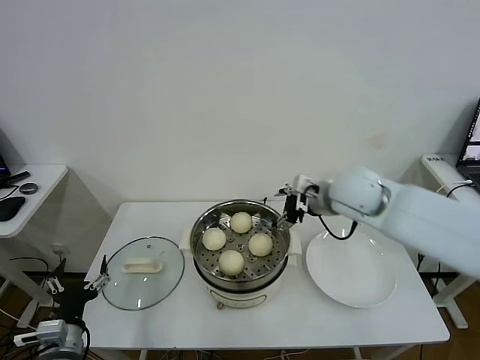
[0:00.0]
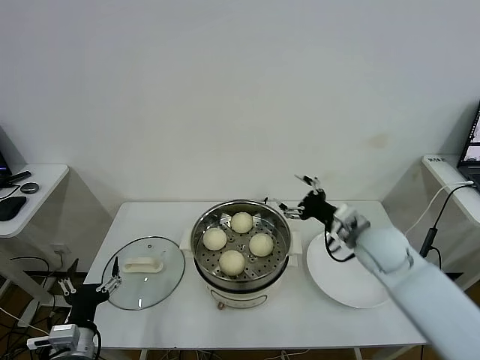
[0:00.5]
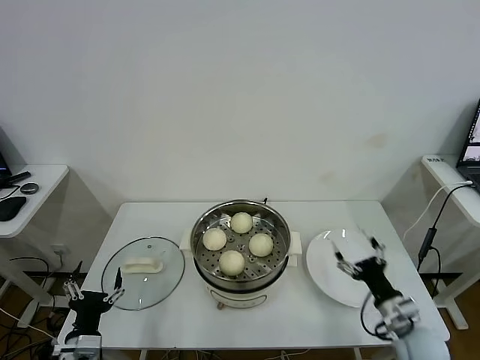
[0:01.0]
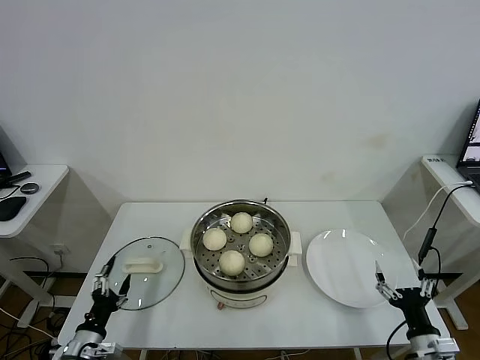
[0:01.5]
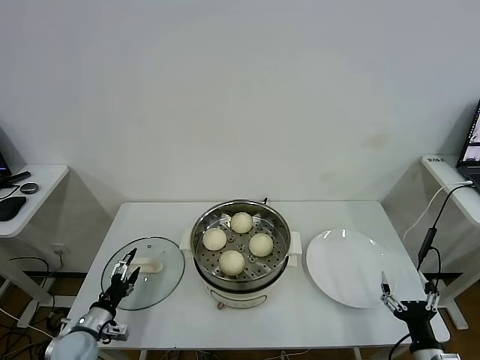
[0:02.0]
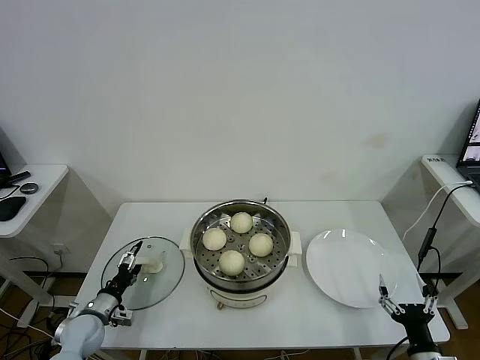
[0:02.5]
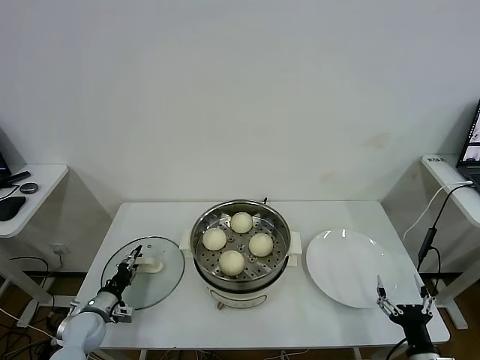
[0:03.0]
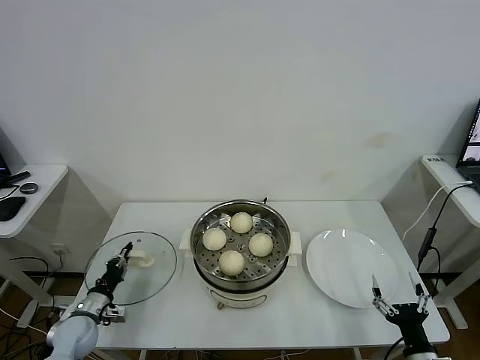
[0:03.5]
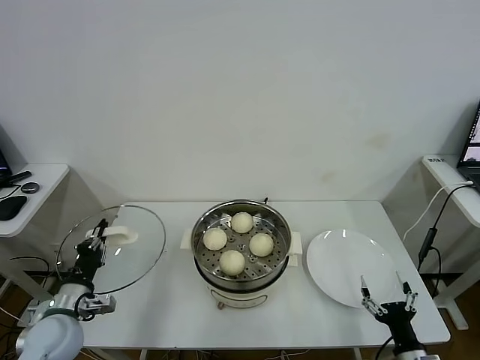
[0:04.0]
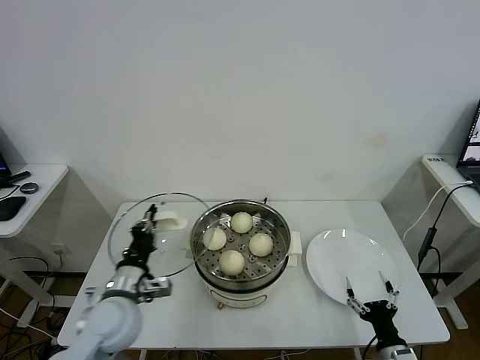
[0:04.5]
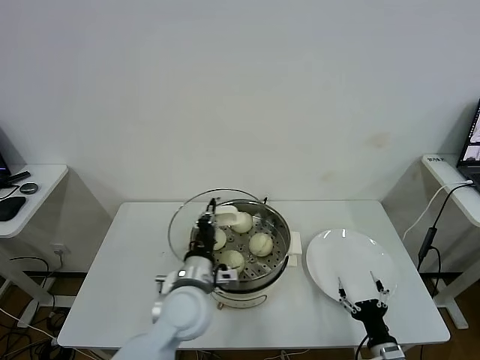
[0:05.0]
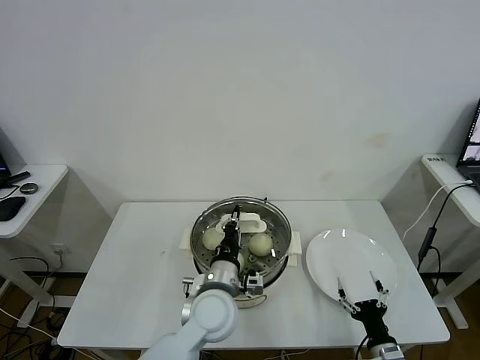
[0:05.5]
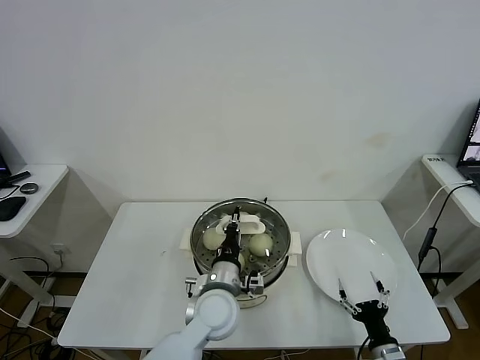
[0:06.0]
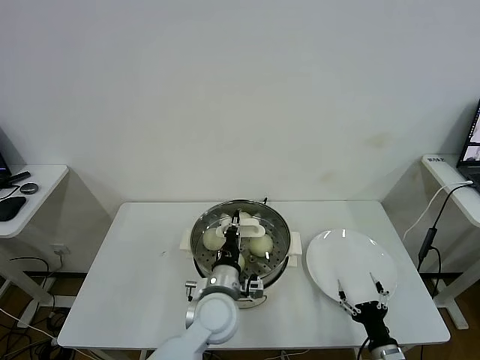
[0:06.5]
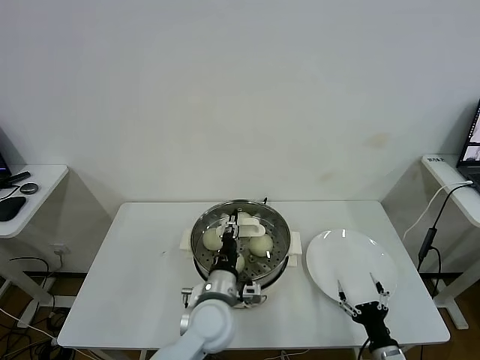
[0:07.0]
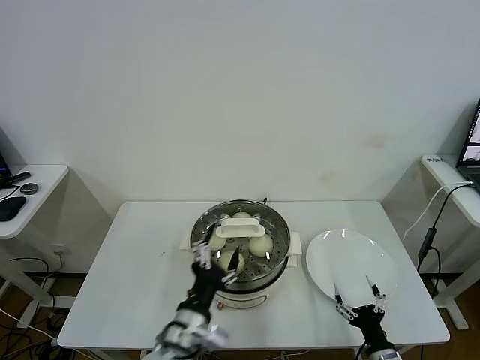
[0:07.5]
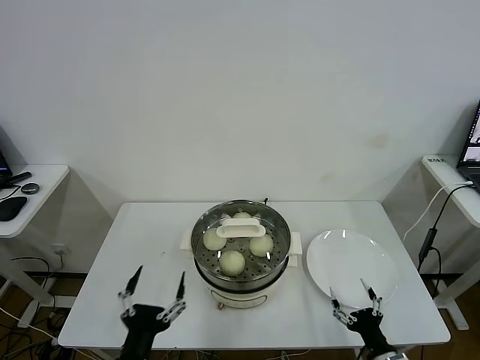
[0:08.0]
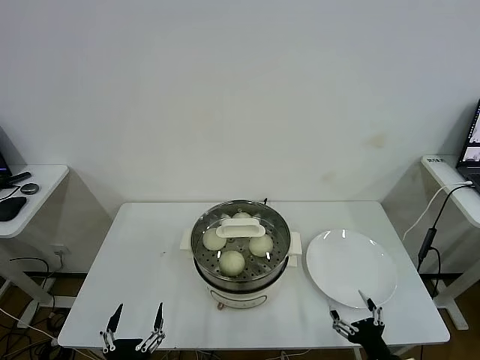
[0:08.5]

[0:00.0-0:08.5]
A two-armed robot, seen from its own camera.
Task of the whole recording: take steamed baozi put them in steamer.
Step, 0:00.0 to 0:03.0: Grasp the pot lid with left gripper.
Step, 0:04.0 to 0:07.0: Place the pot lid on the steamer with left gripper.
0:00.0 to 0:02.0: The right gripper is displaced backward, downward and to the right by about 50 cm, while the left gripper is displaced downward and forward by roughly 15 cm.
0:02.0 to 0:04.0: The left gripper is displaced upward by roughly 10 cm, and closes up.
0:04.0 to 0:06.5: The left gripper shifts roughly 30 cm to the right. The right gripper moves roughly 5 cm.
0:06.5 to 0:08.5: The right gripper moves upward, about 5 cm; the left gripper goes about 30 cm backward and to the left, and opens up.

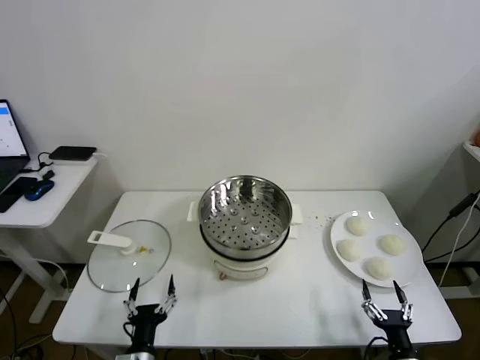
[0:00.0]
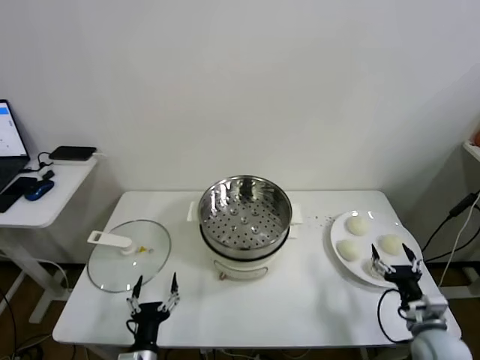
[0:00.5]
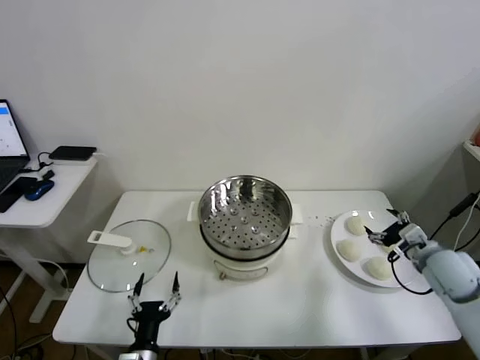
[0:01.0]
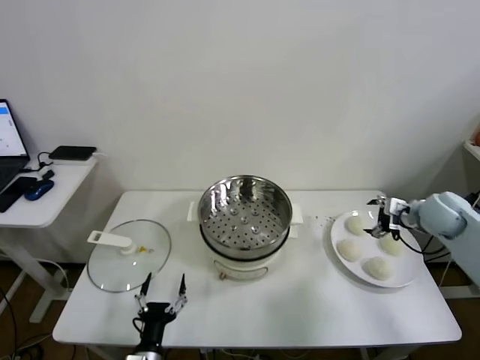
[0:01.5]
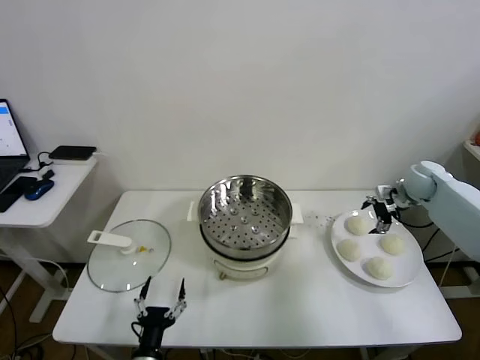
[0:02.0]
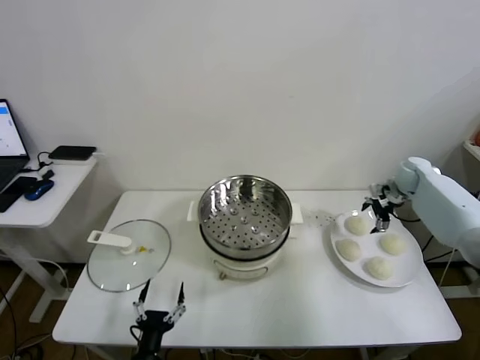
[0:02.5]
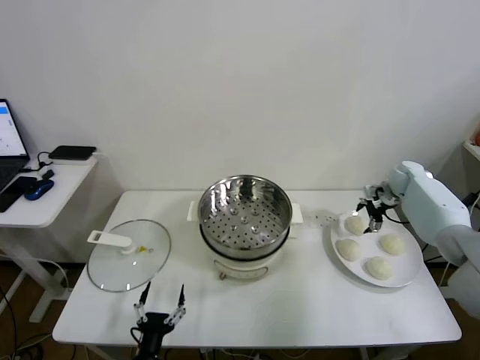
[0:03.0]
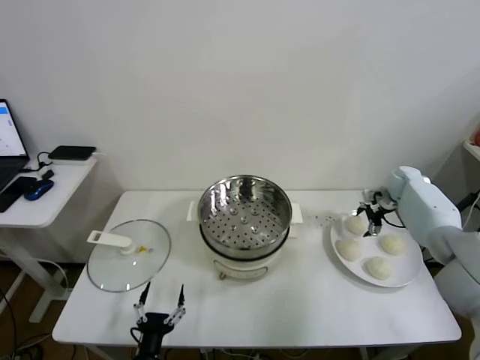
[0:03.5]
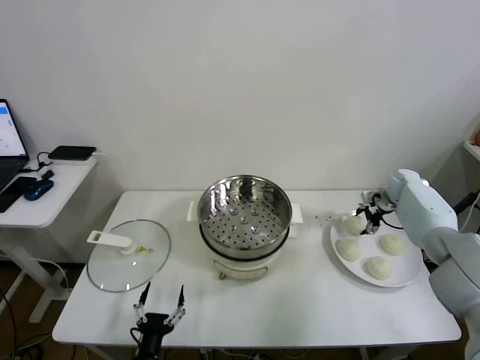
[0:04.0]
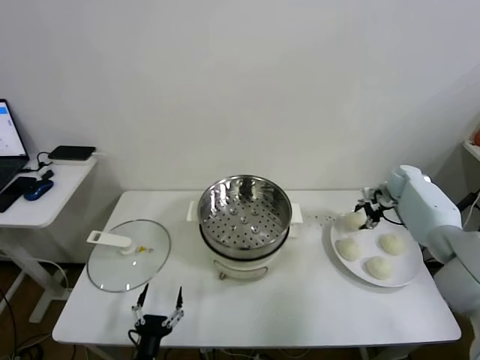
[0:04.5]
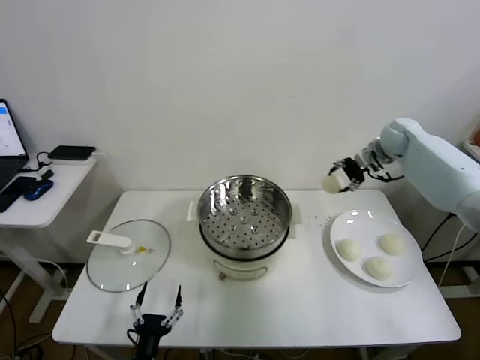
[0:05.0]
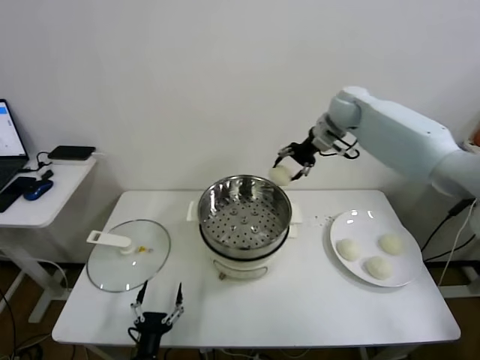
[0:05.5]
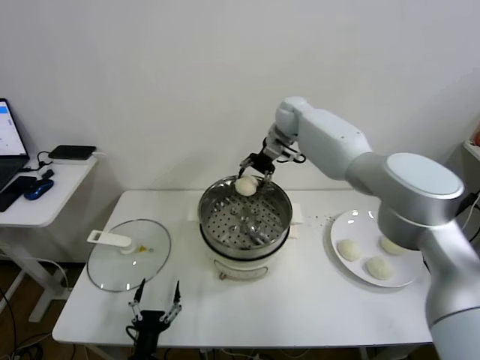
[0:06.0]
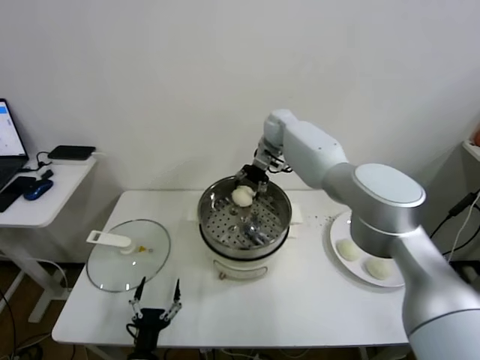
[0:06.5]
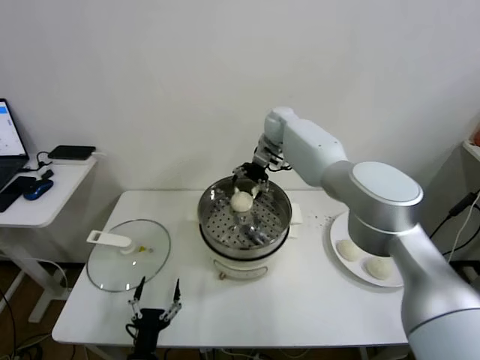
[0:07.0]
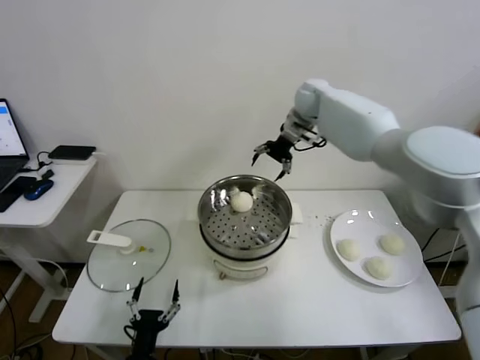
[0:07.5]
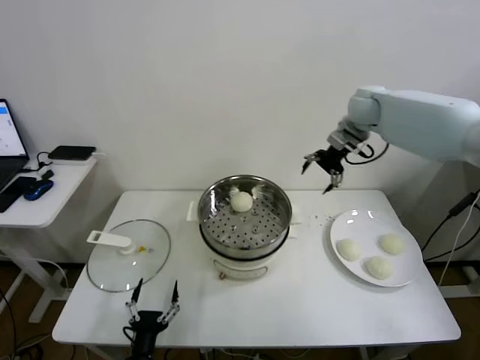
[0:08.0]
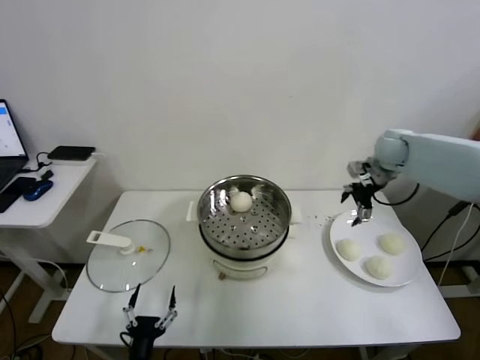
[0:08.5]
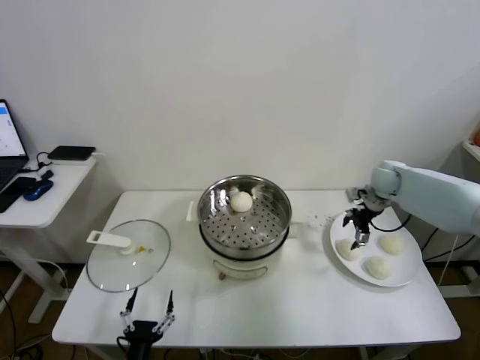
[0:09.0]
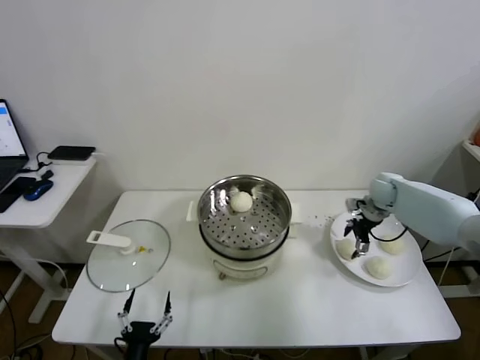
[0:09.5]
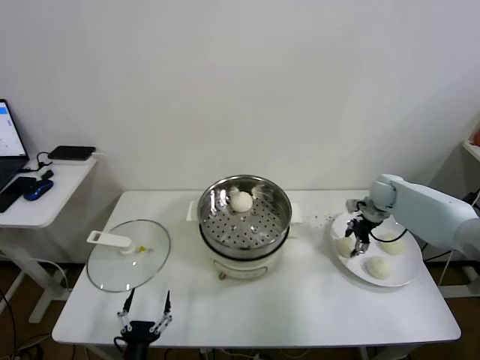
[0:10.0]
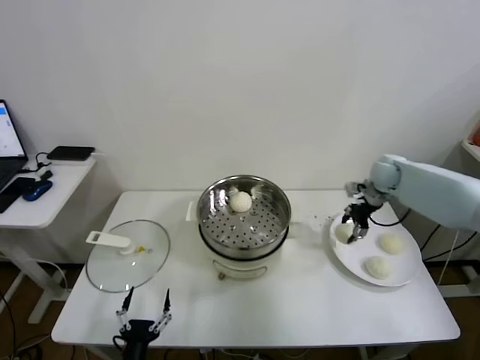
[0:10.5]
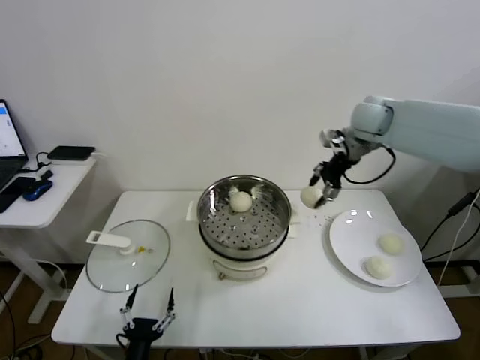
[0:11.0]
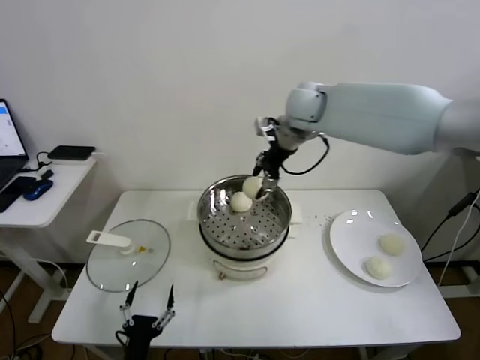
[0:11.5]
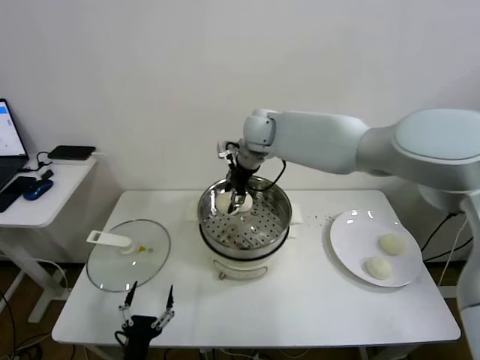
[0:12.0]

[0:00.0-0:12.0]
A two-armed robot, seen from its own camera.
Task of the whole recording: take steamed baozi put them in steamer.
Step, 0:00.0 to 0:04.0: Grasp the baozi in the plate with right gripper.
Step, 0:04.5 to 0:06.5: Place the baozi on the steamer with right gripper.
Step, 0:07.0 to 0:10.0: Grasp the baozi in the plate with right gripper.
0:02.0 to 0:04.0: The right gripper heads downward, covering about 5 cm, and closes.
0:04.0 to 0:06.0: The right gripper moves to the left and upward, roughly 40 cm.
0:06.0 to 0:08.0: The right gripper heads to the right, covering roughly 20 cm, and opens its fingers.
0:08.0 to 0:10.0: The right gripper shifts about 25 cm downward and to the right, and closes its fingers.
0:10.0 to 0:12.0: The right gripper is displaced to the left and upward by some 40 cm.

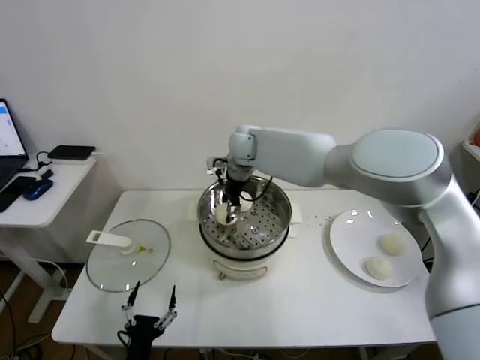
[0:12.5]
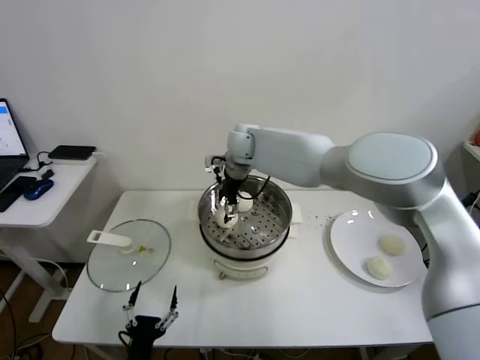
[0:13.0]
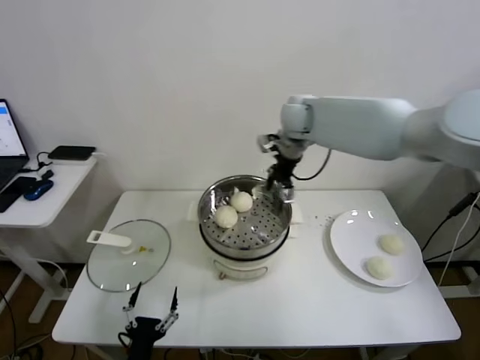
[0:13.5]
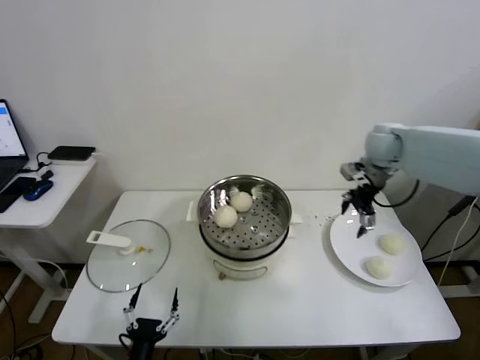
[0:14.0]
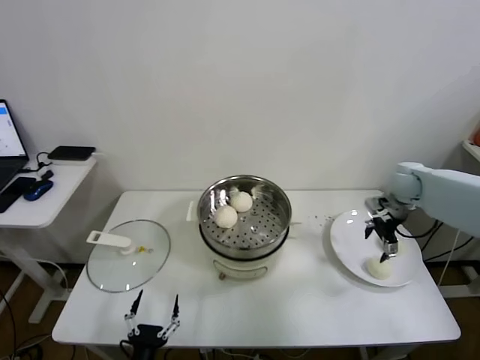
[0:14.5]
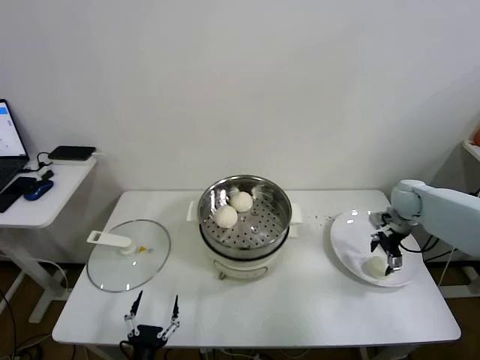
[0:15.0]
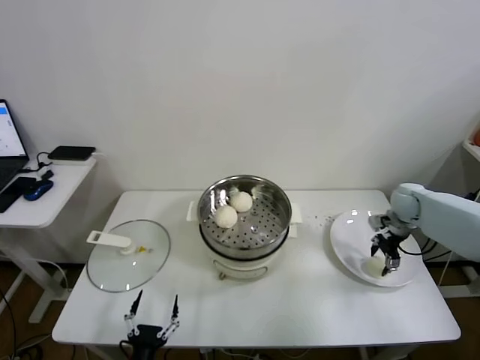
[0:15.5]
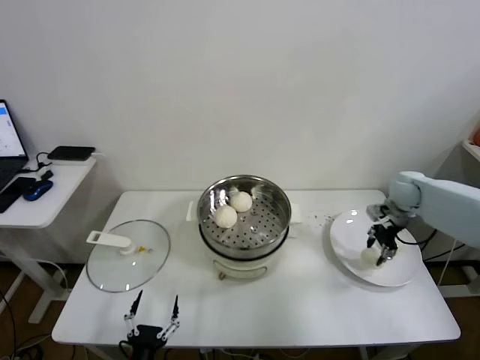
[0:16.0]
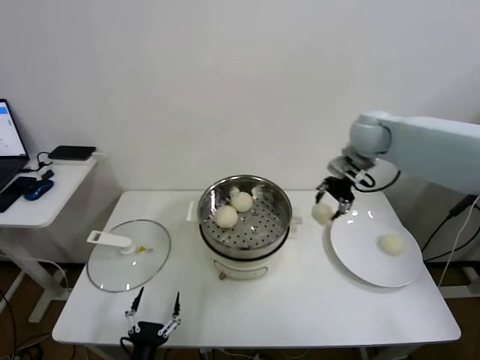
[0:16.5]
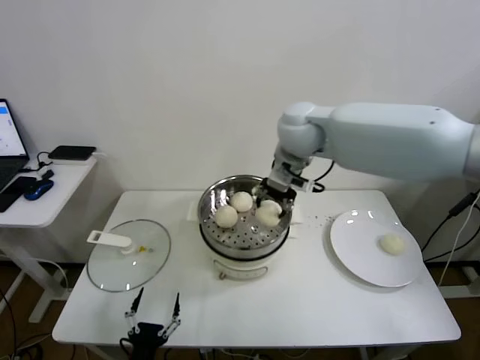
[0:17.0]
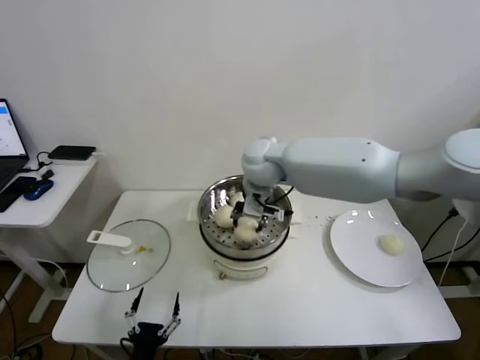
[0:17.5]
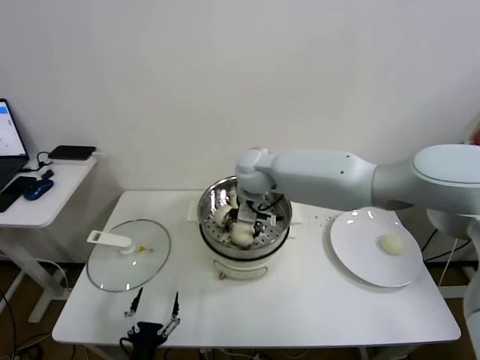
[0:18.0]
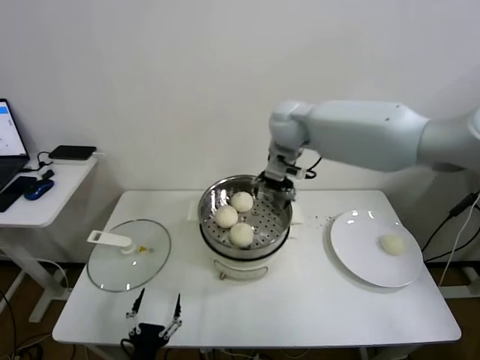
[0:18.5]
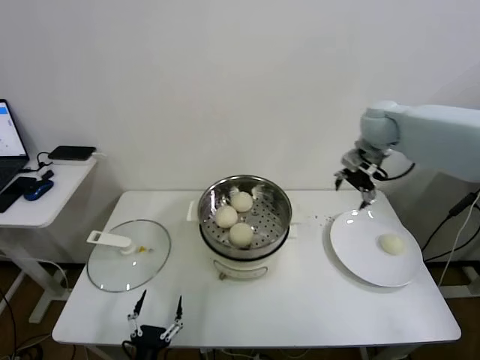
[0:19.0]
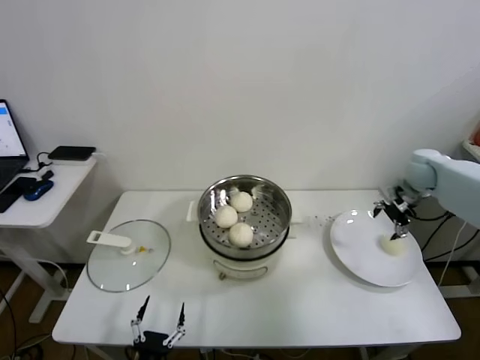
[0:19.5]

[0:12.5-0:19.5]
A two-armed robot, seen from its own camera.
Task of the whole recording: take steamed baozi put them in steamer.
Step, 0:13.0 to 0:15.5: Grasp the baozi in the plate with right gripper.
Step, 0:16.0 to 0:18.0: Place the baozi on the steamer with right gripper.
0:12.5 to 0:14.5: The right gripper shifts approximately 40 cm to the right, and opens.
0:14.5 to 0:16.0: The right gripper closes up.
0:16.0 to 0:17.5: The right gripper travels to the left by some 40 cm.
0:17.5 to 0:19.5: The right gripper travels to the right by approximately 40 cm, and opens its fingers.
